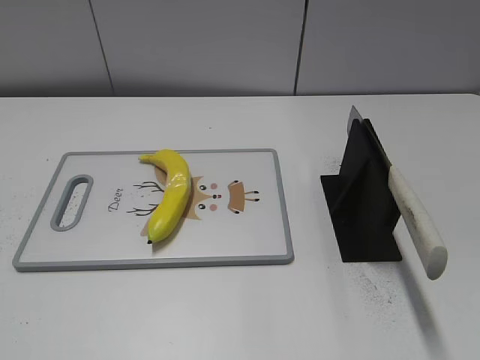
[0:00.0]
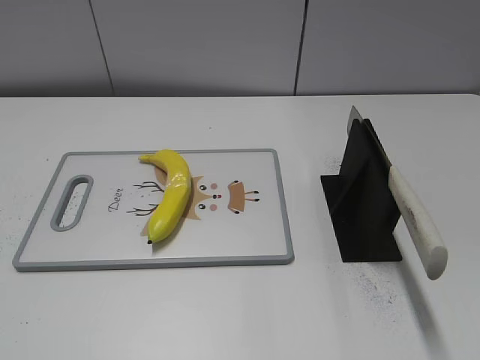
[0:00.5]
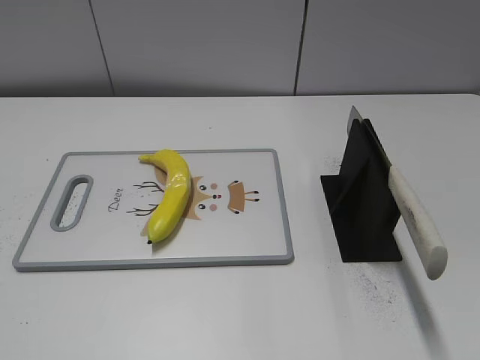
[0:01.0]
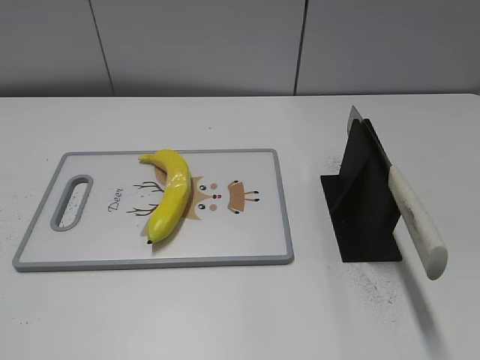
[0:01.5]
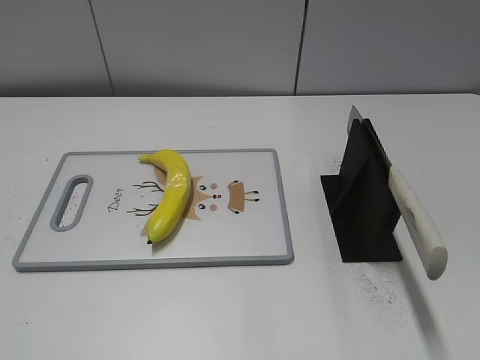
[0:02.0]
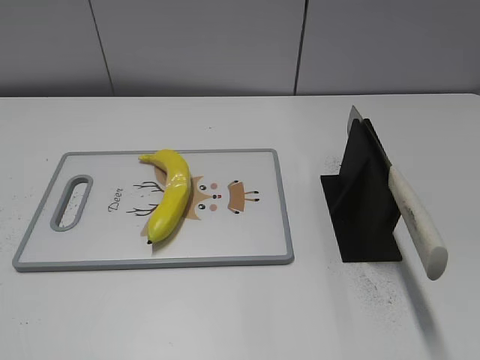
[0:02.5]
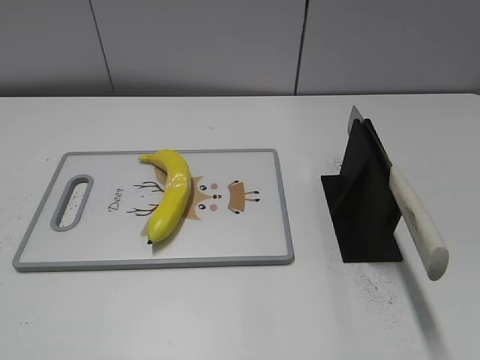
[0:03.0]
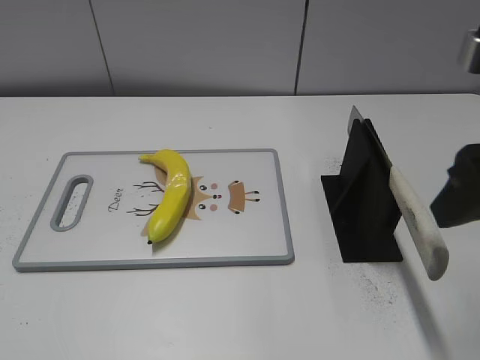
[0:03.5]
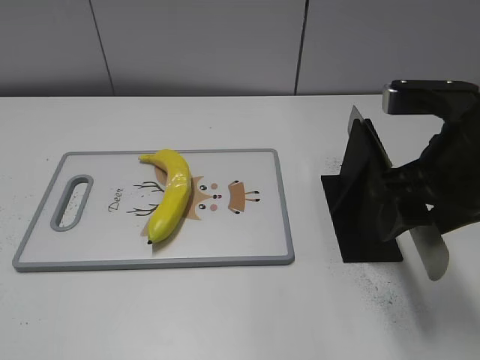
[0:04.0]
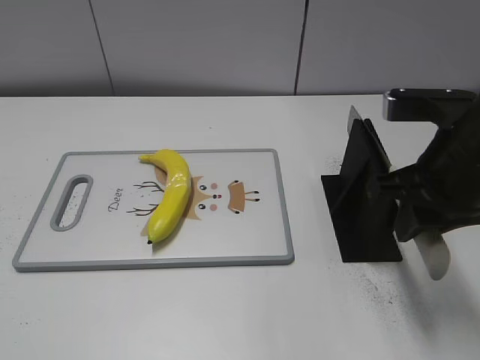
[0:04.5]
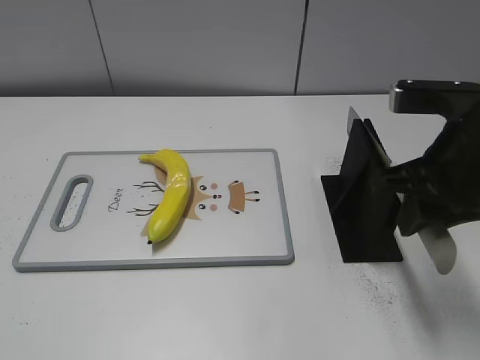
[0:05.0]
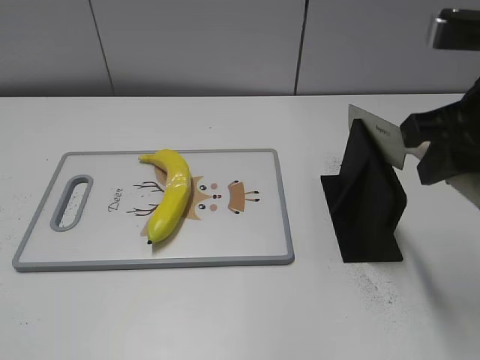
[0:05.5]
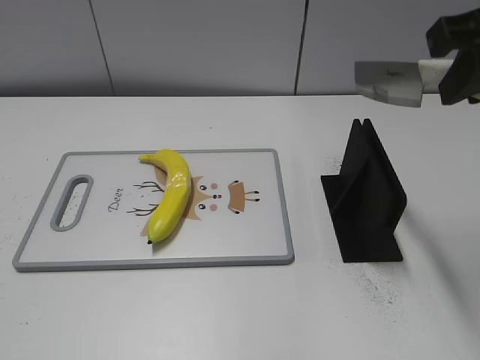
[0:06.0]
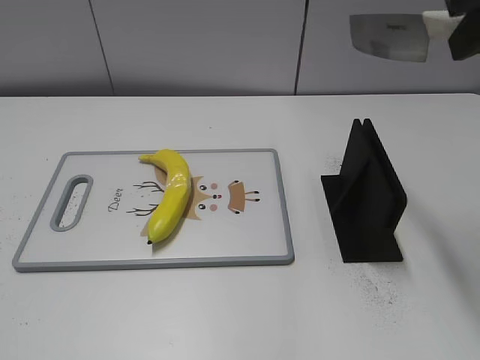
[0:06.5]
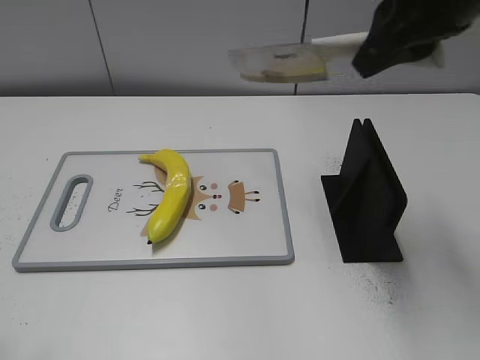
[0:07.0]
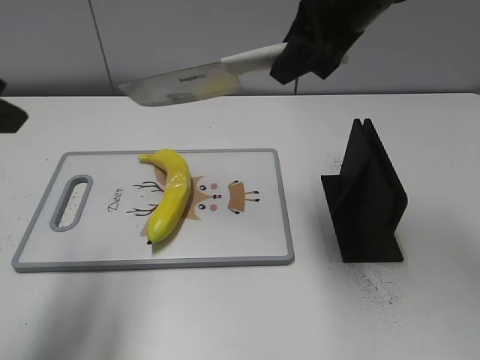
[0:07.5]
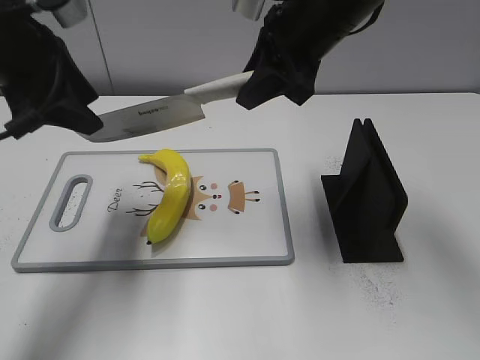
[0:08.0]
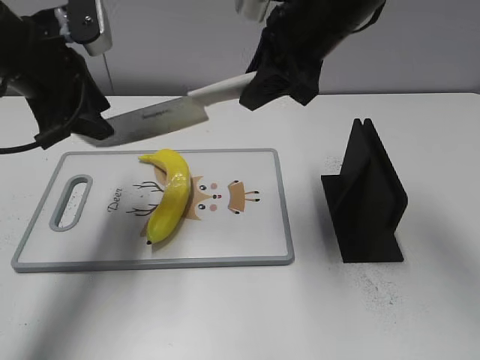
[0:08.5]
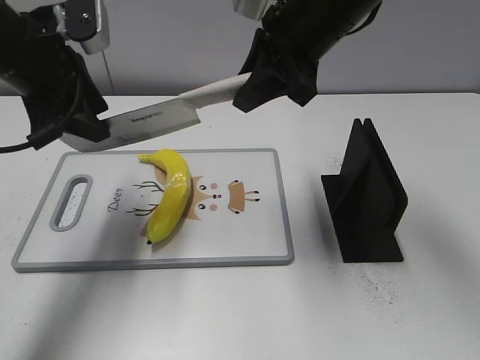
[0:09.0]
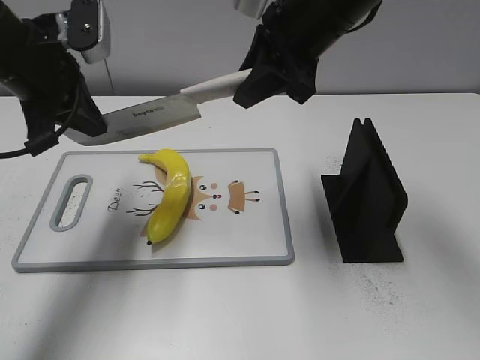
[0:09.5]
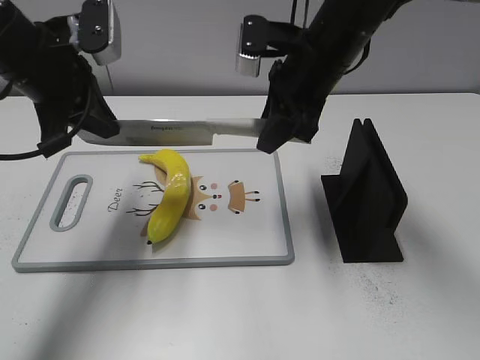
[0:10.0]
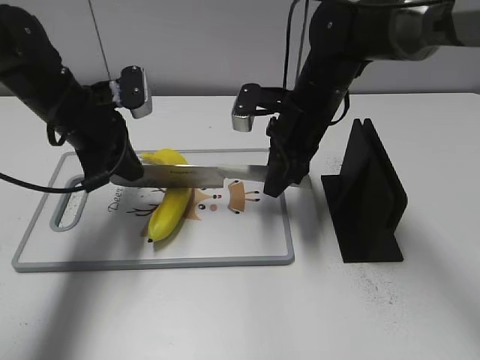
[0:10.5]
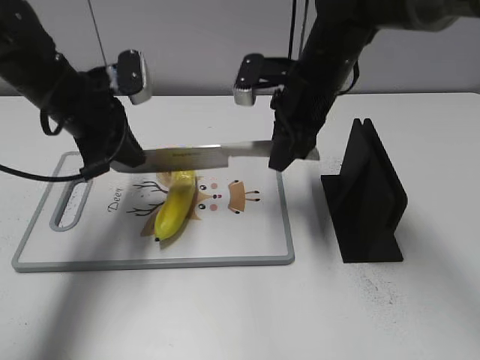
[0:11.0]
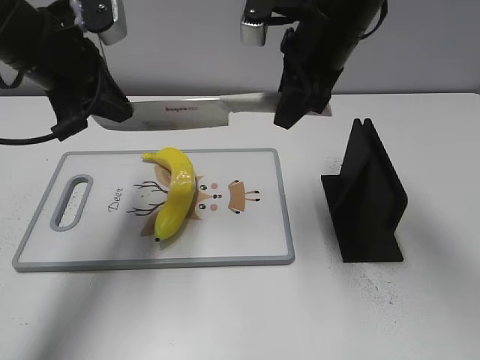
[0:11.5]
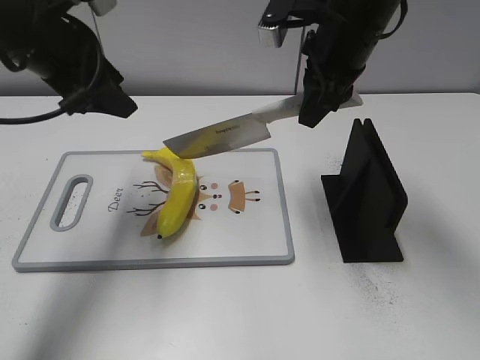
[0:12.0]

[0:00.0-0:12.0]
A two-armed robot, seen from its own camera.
Task of the whole recording: cut plastic banana.
Step, 0:00.0 to 0:05.5: Grab the knife handle with your right hand.
Step, 0:06.0 to 0:11.5: Lift the knife with your right hand.
0:02.0 to 0:04.0: The right gripper goes roughly 25 cm forward and to the left.
0:04.0 to 0:06.0: The right gripper travels upward by roughly 10 cm, and closes its fingers.
0:06.0 to 0:08.0: The right gripper goes approximately 20 cm forward, to the left and downward; the left gripper moves forward, approximately 30 cm.
0:08.0 to 0:10.0: The right gripper is displaced downward by roughly 5 cm. The left gripper closes up.
0:10.0 to 0:12.0: The right gripper goes downward and returns, some 10 cm each way; the left gripper reaches about 10 cm downward, then returns, and opens its fingers.

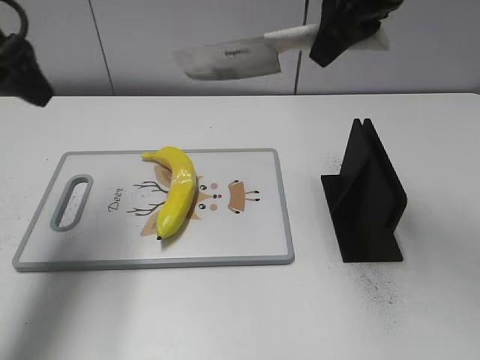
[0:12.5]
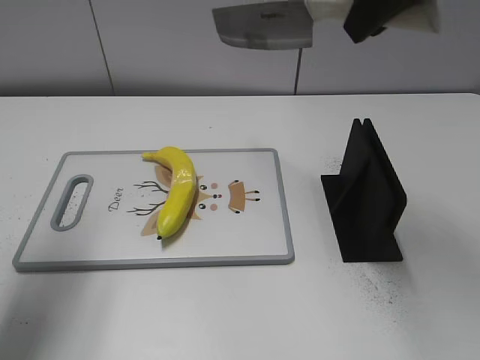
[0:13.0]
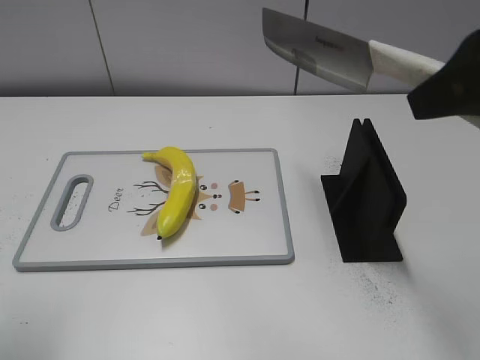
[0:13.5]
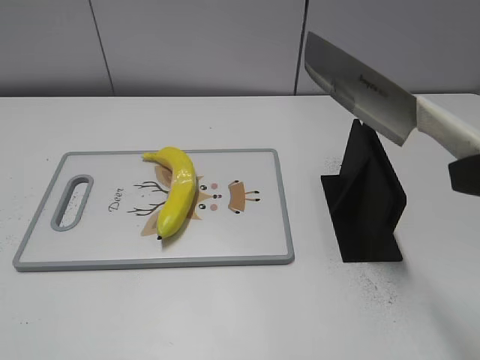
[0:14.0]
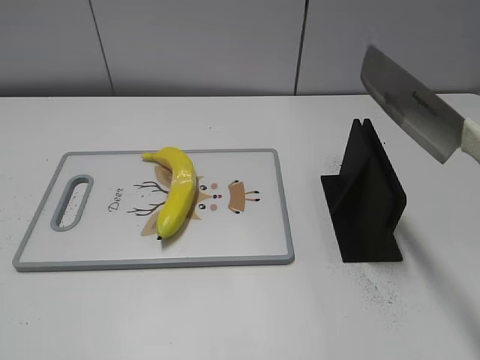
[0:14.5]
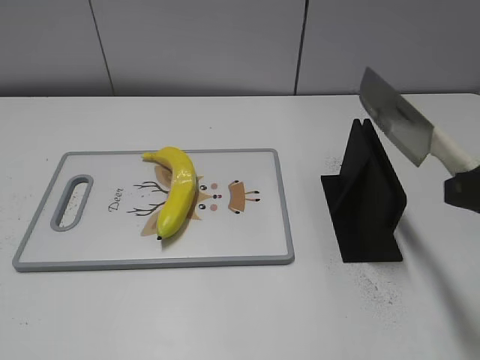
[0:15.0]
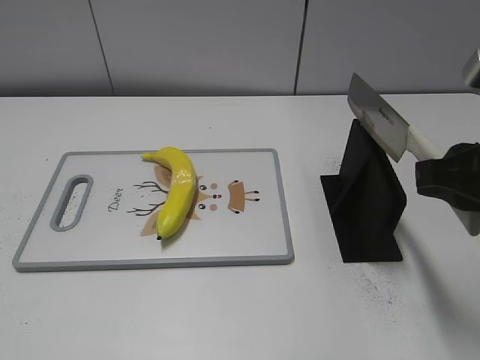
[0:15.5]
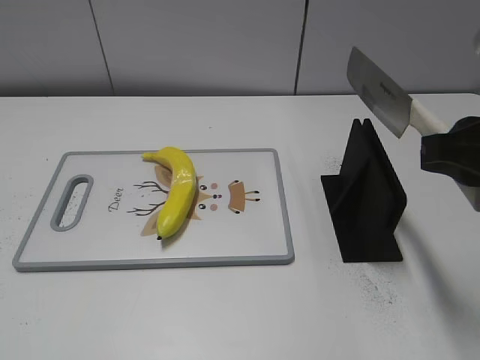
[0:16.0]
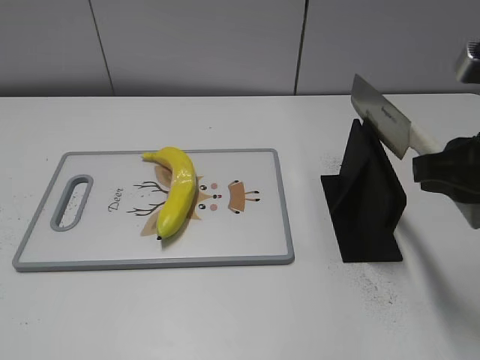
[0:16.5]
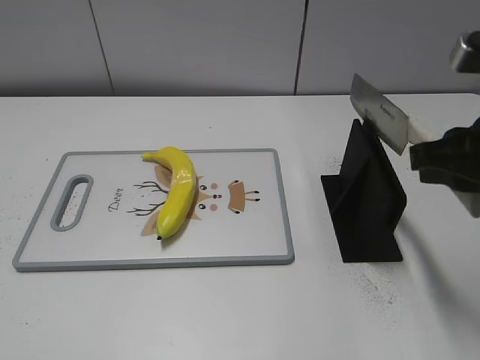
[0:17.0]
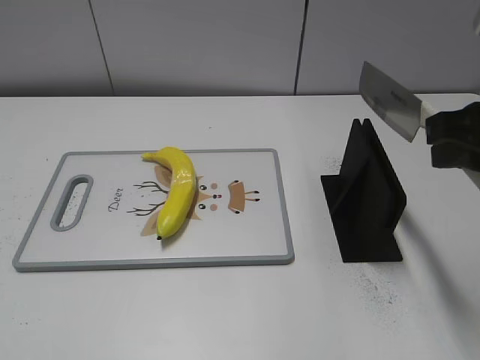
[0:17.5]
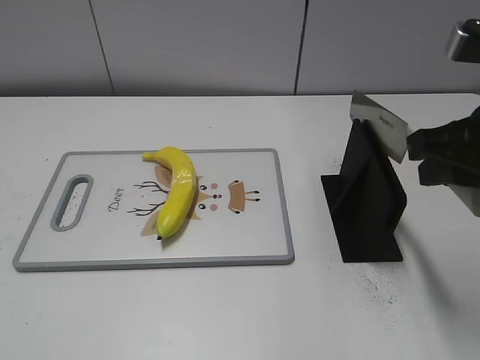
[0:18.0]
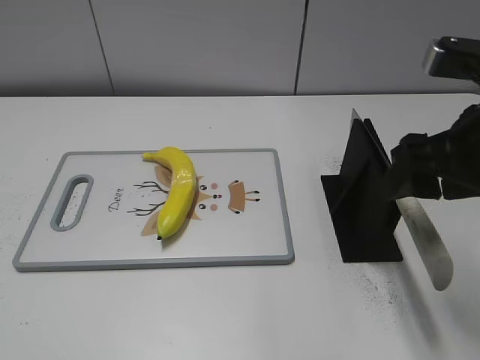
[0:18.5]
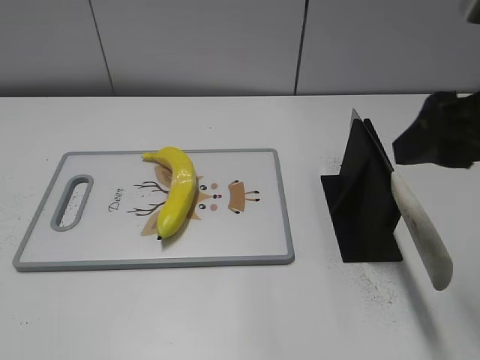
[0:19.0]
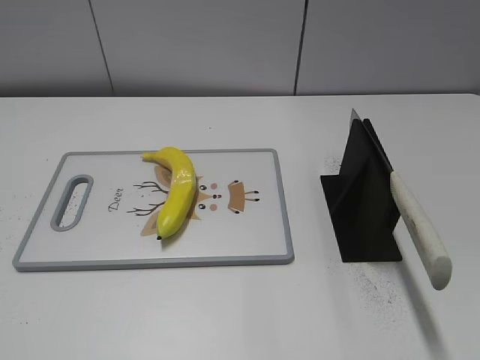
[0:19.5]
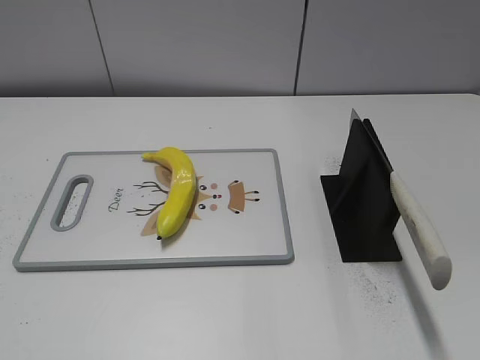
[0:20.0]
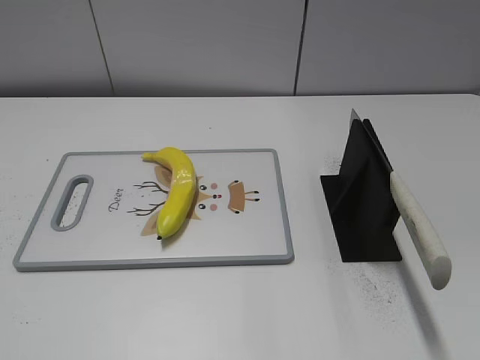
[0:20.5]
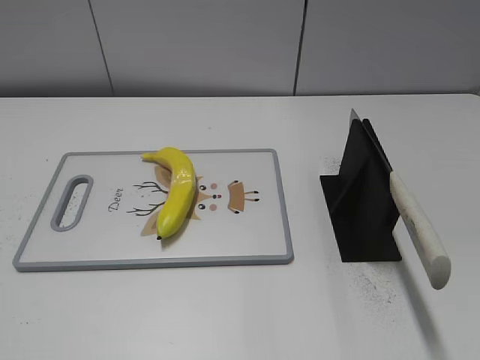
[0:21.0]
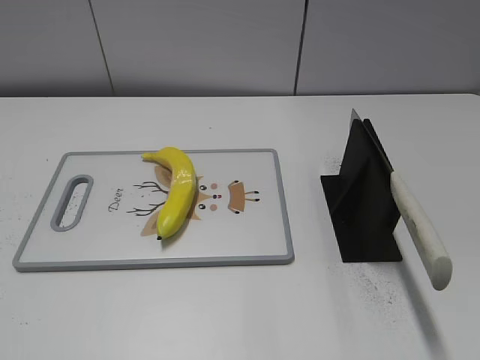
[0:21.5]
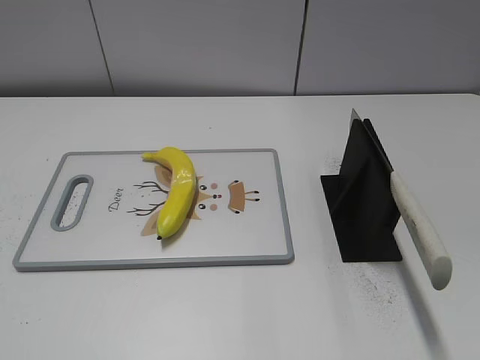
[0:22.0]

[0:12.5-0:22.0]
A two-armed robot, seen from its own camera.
Task of the whole recording: cut plastic banana.
Step, 0:13.5 to 0:14.0: Secure the blade with your left hand.
Step, 0:14.5 to 0:22.0: Place the knife on the storage rack with your right hand.
0:12.5 to 0:14.5: The right gripper goes about 25 cm backward and to the right. Meanwhile the left gripper is displaced backward by roughly 30 cm.
0:14.5 to 0:16.5: The right gripper travels forward by approximately 10 cm.
0:16.5 to 0:18.0: The grippers stay close to where they were, moving slightly.
0:18.0 to 0:20.0: The right gripper shifts approximately 20 cm backward, and opens its fingers.

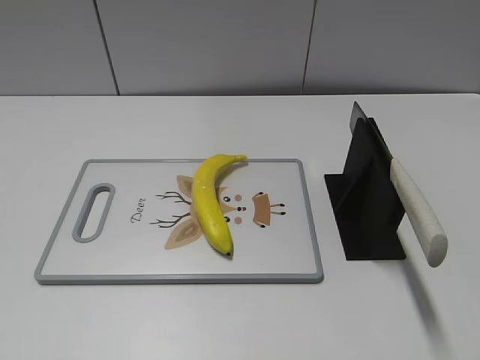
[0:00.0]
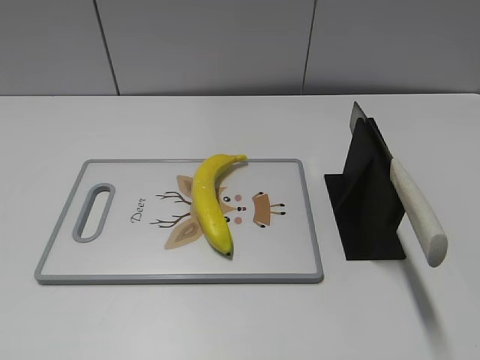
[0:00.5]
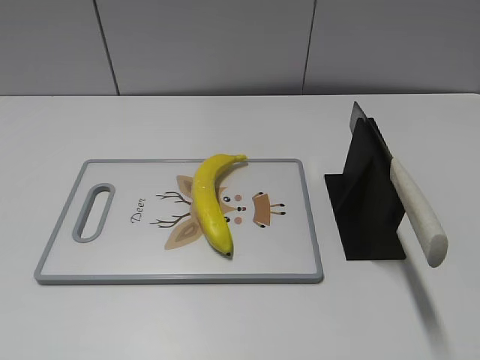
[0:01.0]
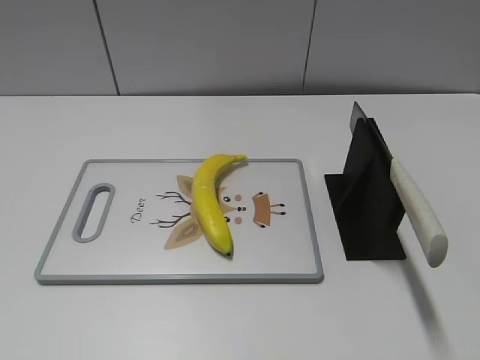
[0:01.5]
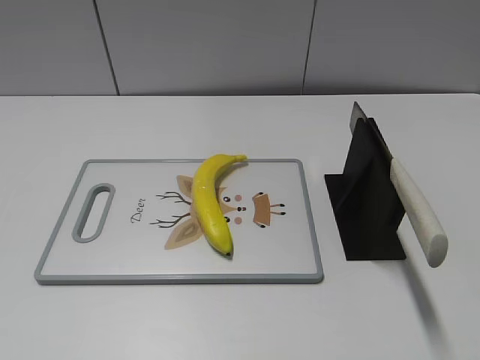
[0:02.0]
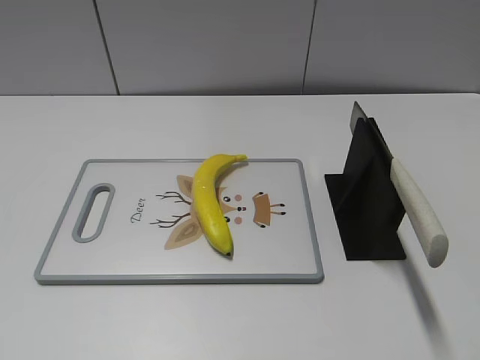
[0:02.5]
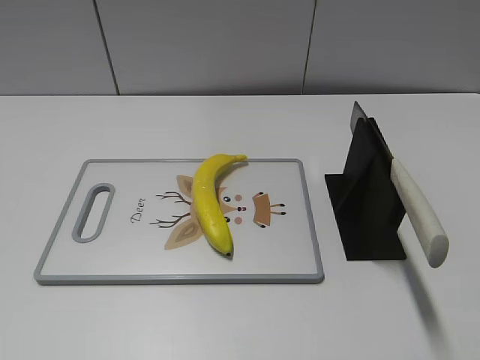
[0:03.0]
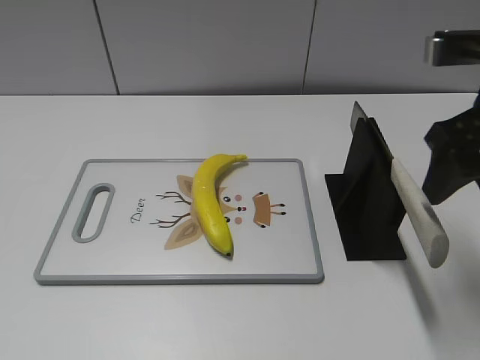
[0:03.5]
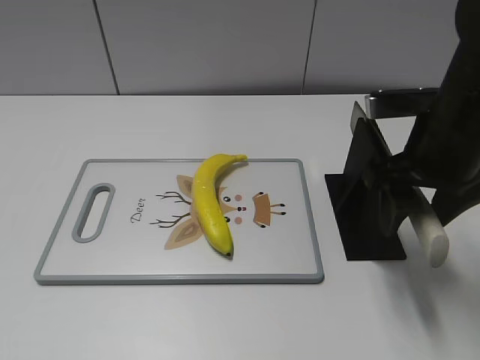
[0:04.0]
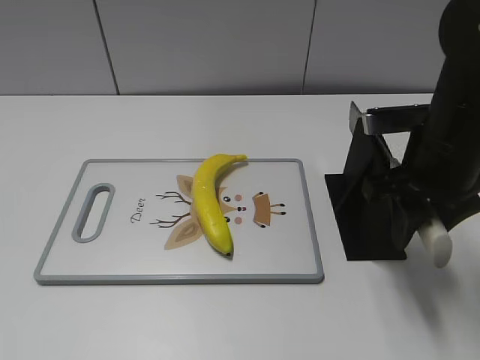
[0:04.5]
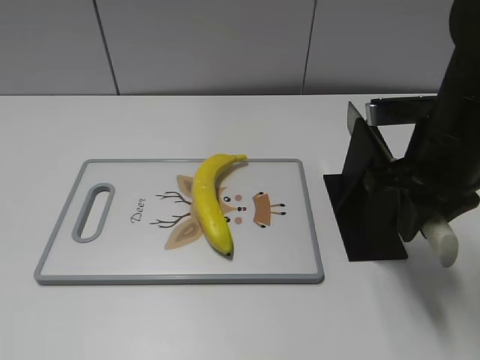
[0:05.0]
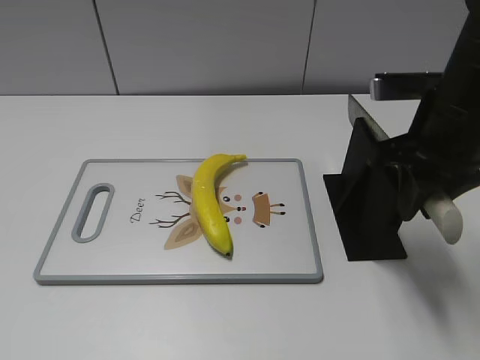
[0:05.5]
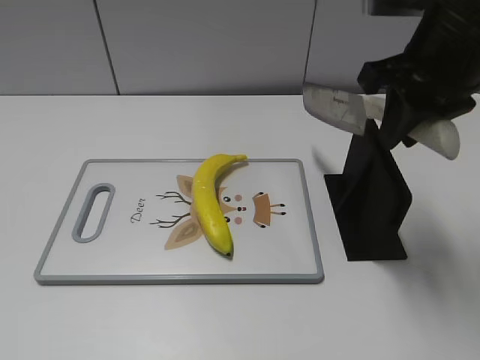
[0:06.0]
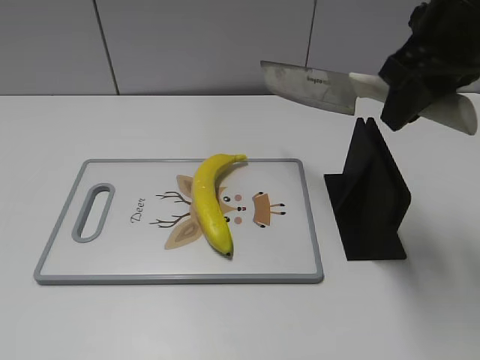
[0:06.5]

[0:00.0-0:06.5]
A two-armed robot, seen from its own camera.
Task of the whole recording: cut plastic banana.
Step, 0:00.0 to 0:05.5: Grab the knife handle with your right hand.
0:02.0 to 0:04.5: The right gripper heads forward, covering approximately 25 cm, and closes up.
0:04.5 to 0:06.5: The right gripper heads upward, covering approximately 10 cm, and closes.
